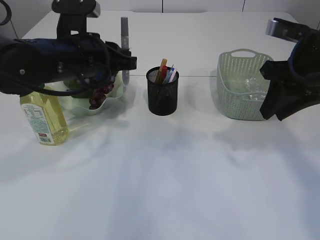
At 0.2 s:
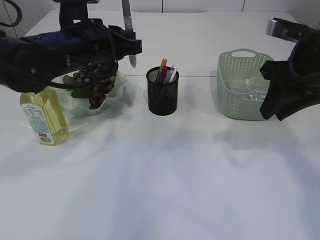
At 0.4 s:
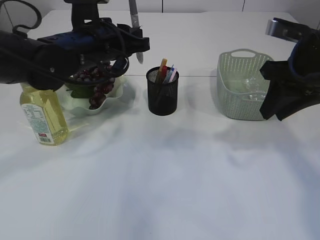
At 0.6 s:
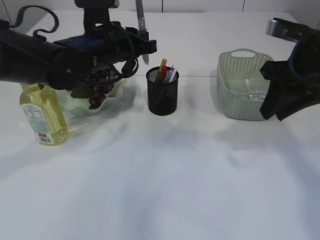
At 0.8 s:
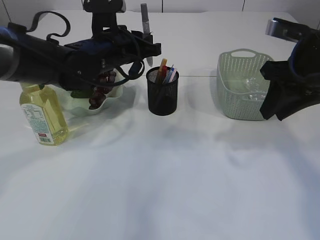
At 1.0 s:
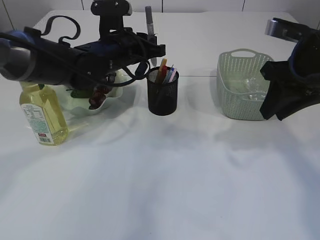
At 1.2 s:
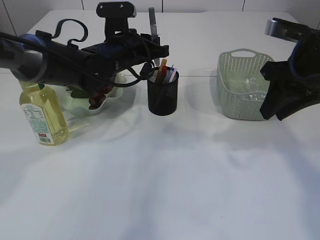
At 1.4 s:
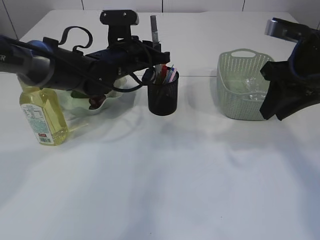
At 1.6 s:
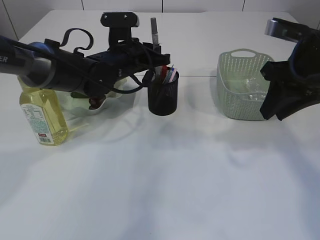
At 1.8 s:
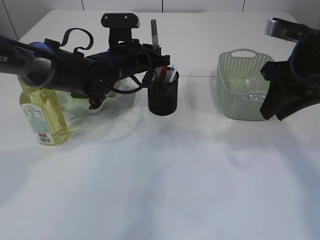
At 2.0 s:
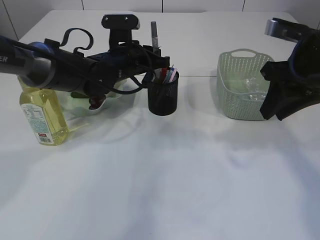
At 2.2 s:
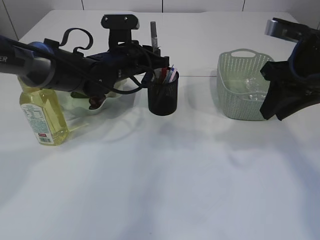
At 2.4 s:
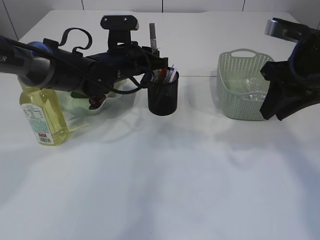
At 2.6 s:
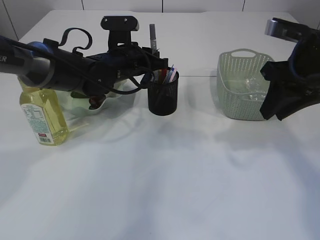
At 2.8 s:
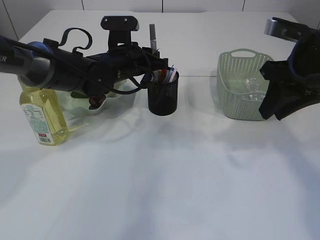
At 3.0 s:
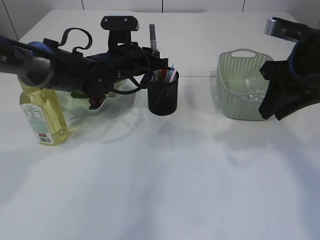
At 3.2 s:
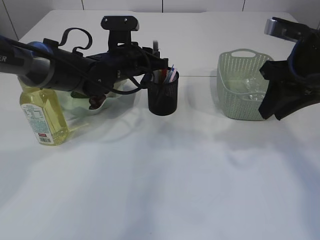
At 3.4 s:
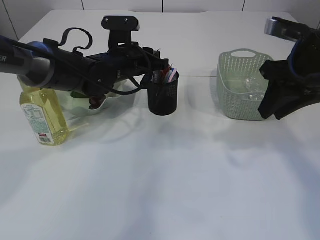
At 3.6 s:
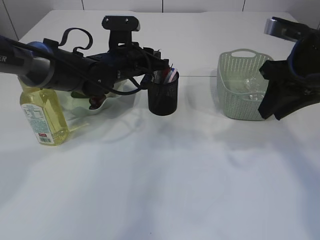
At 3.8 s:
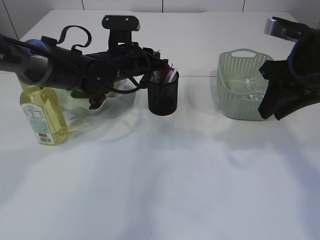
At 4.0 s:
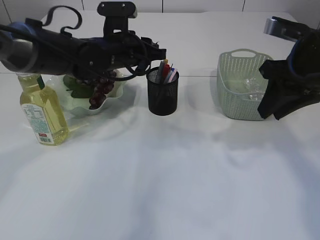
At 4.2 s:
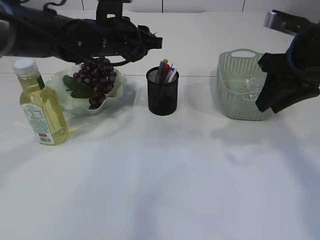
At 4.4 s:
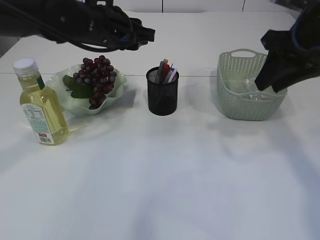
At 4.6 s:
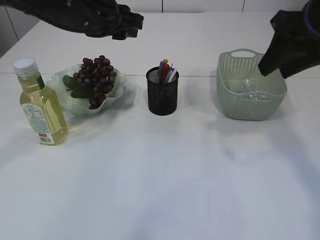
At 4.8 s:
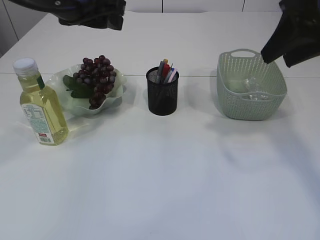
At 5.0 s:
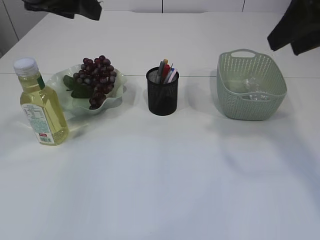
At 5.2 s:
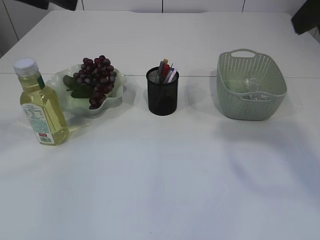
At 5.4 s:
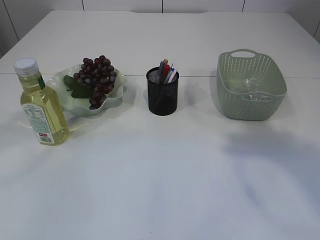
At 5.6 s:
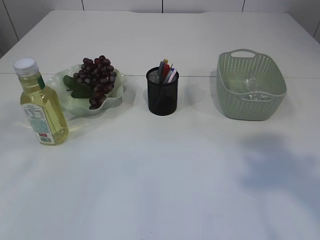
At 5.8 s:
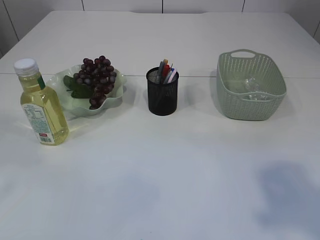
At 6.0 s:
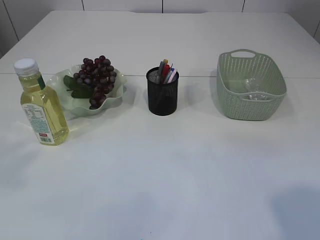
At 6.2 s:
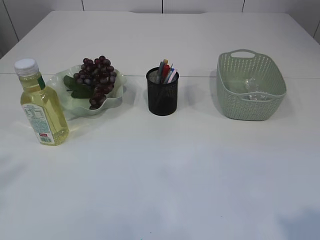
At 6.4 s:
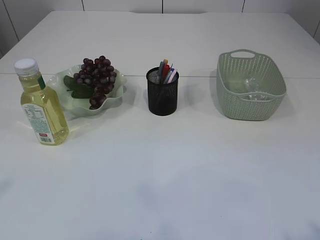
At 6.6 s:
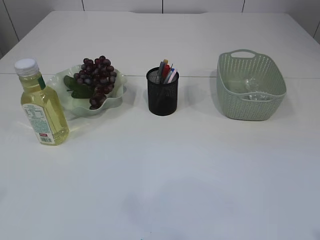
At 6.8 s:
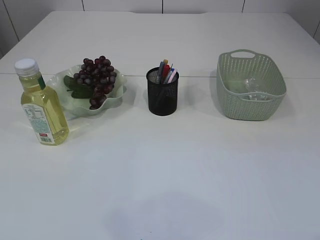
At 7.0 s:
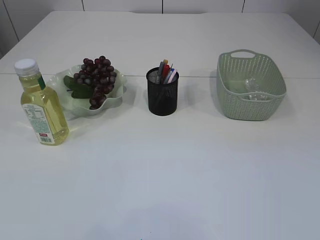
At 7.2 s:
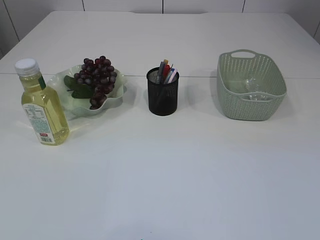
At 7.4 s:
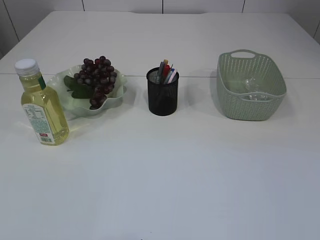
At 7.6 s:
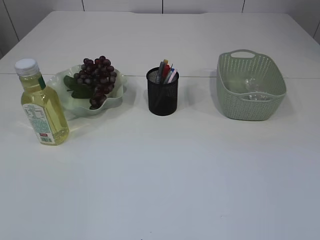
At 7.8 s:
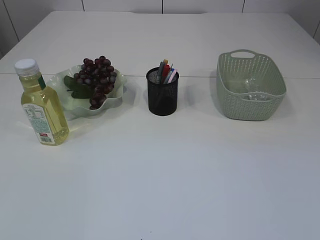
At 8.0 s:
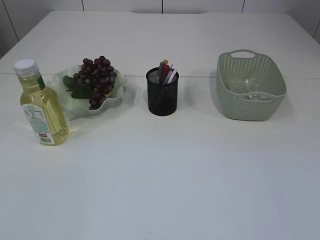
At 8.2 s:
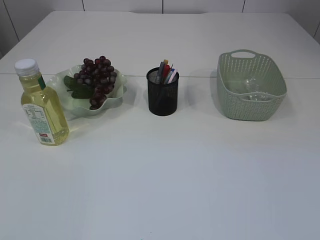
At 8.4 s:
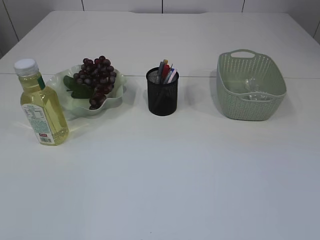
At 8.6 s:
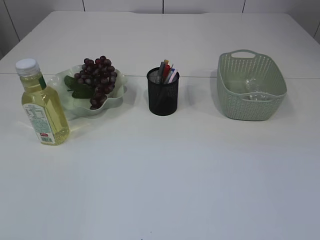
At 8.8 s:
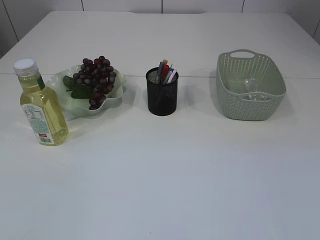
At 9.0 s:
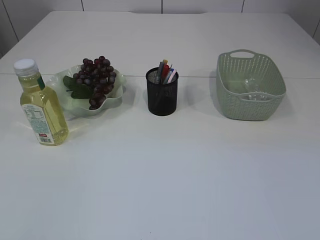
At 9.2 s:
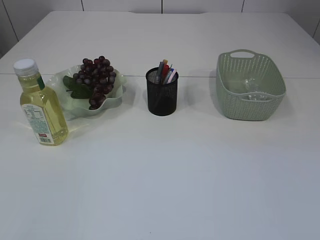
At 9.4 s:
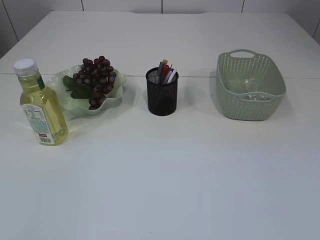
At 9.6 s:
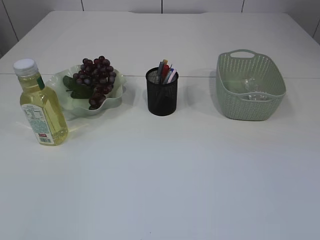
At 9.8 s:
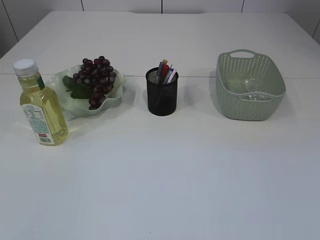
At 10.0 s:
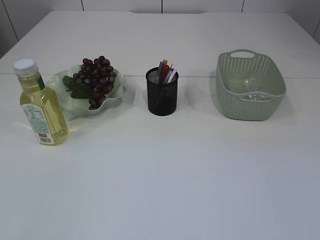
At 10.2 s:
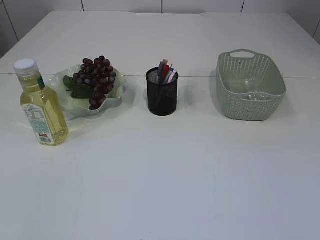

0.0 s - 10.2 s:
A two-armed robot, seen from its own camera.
Step, 0.0 s - 4.2 s: place the silver glue into the pen holder.
0.0 s - 1.4 s: The left gripper goes about 10 cm forward, to the right and downward.
1.4 s - 3.0 s: The two grippers keep their place.
3.0 s - 4.4 s: The left gripper heads upward, covering some 10 cm.
4.4 s - 5.8 s: The right gripper goes approximately 25 cm backward and upward. Meanwhile the left gripper shifts roughly 30 cm backward, upward and to the left.
5.8 s - 7.2 s: The right gripper goes about 15 cm downward and backward.

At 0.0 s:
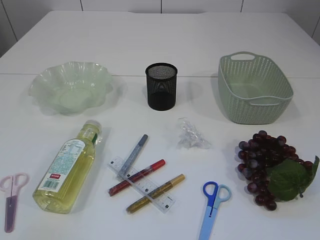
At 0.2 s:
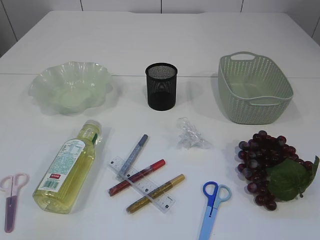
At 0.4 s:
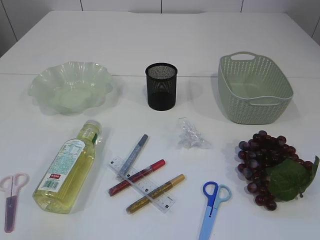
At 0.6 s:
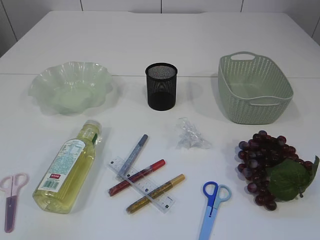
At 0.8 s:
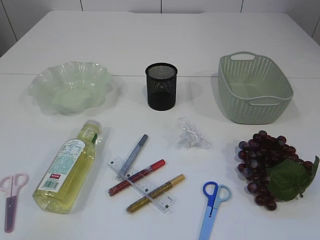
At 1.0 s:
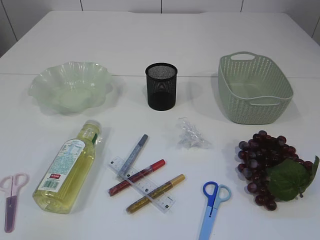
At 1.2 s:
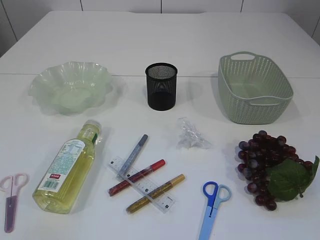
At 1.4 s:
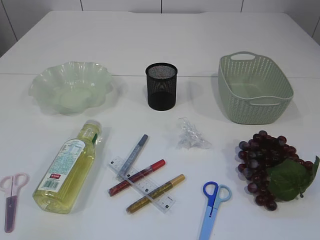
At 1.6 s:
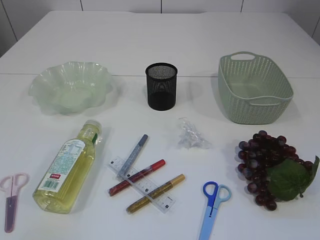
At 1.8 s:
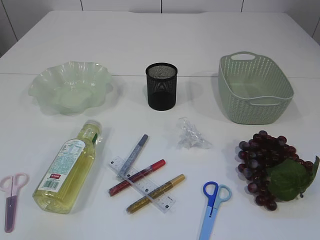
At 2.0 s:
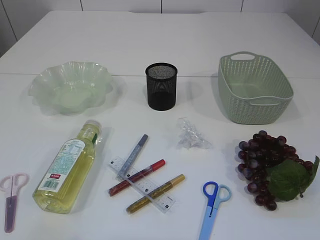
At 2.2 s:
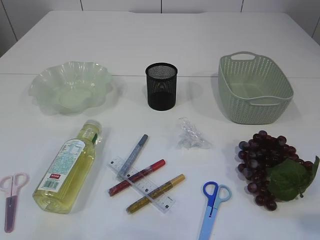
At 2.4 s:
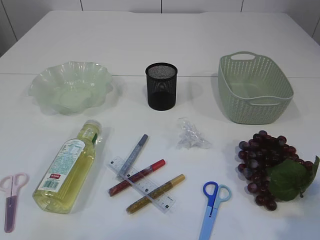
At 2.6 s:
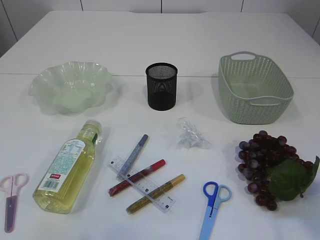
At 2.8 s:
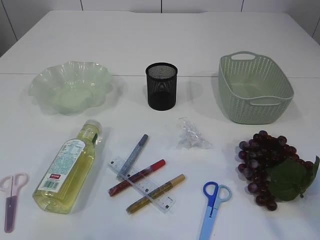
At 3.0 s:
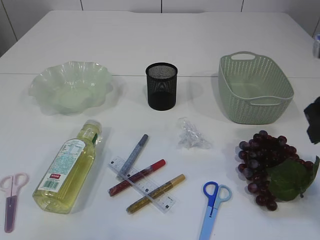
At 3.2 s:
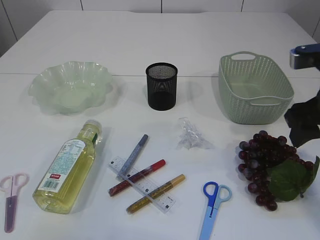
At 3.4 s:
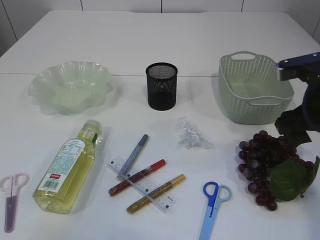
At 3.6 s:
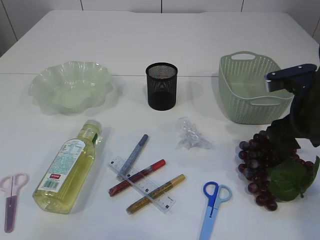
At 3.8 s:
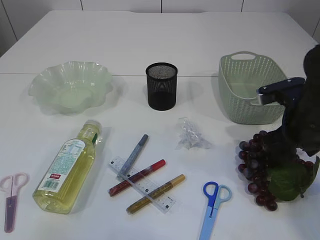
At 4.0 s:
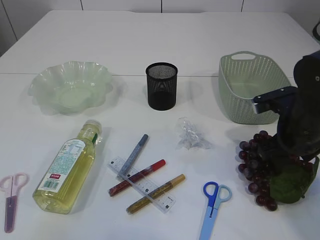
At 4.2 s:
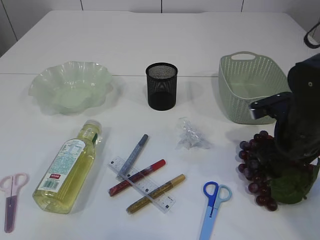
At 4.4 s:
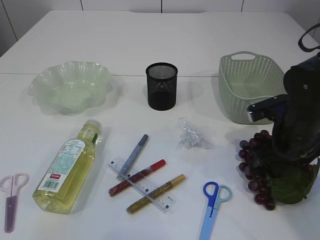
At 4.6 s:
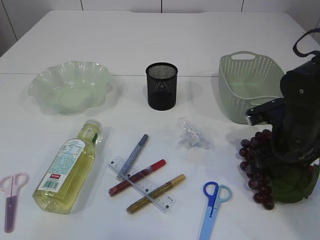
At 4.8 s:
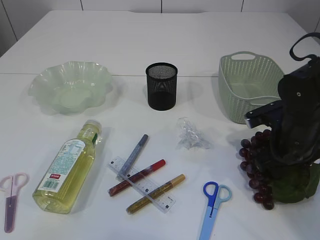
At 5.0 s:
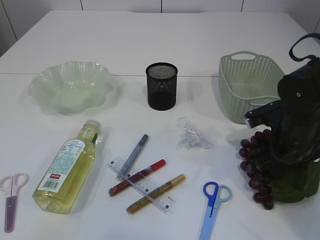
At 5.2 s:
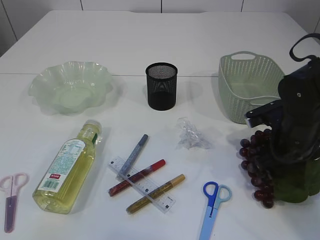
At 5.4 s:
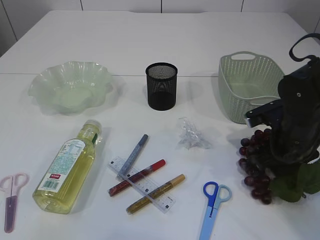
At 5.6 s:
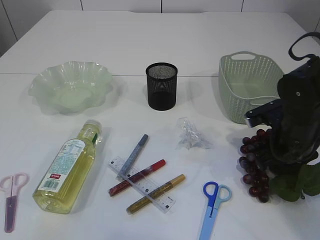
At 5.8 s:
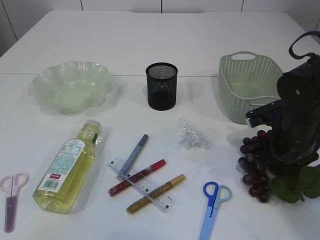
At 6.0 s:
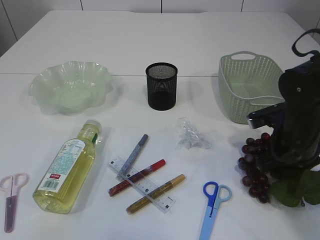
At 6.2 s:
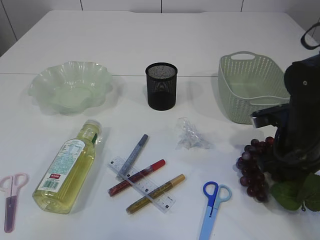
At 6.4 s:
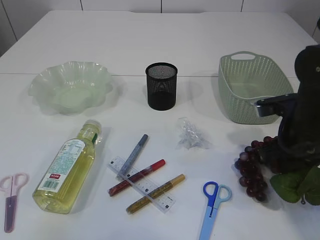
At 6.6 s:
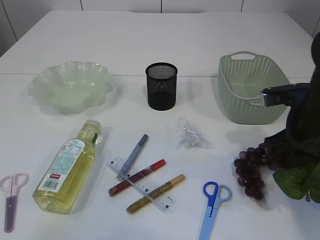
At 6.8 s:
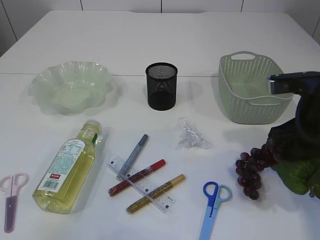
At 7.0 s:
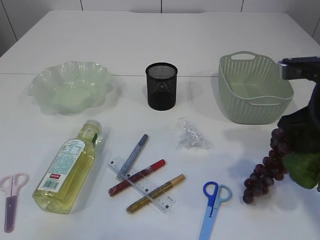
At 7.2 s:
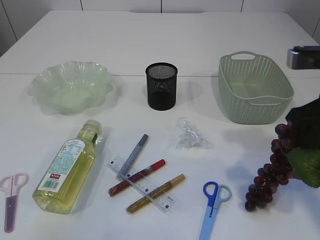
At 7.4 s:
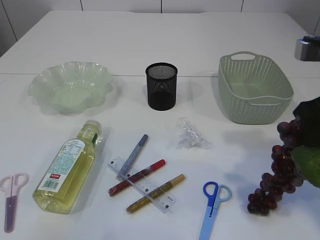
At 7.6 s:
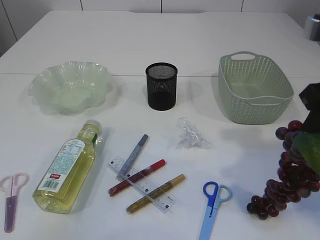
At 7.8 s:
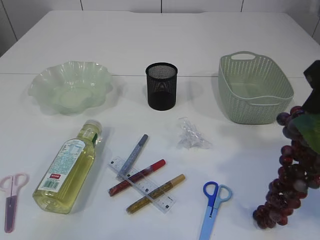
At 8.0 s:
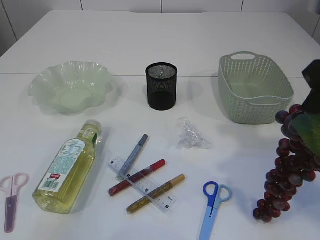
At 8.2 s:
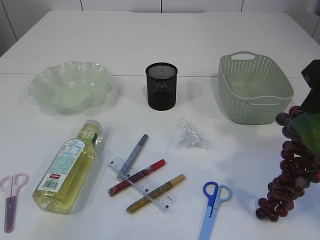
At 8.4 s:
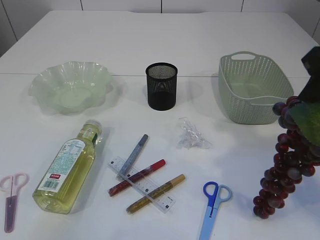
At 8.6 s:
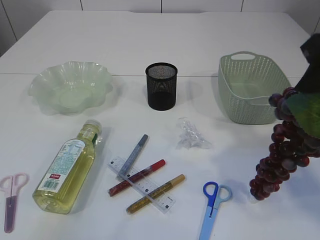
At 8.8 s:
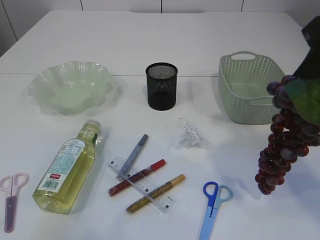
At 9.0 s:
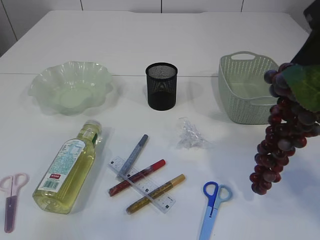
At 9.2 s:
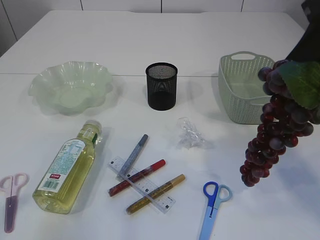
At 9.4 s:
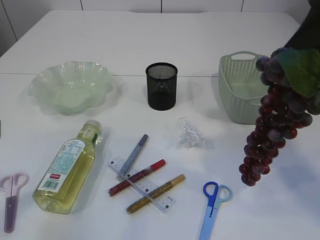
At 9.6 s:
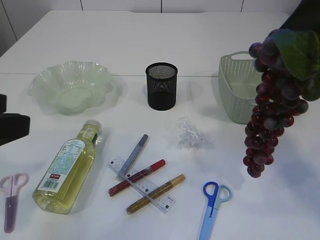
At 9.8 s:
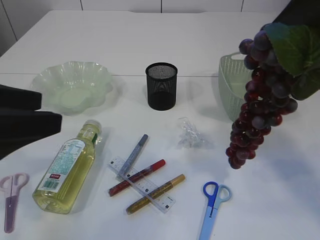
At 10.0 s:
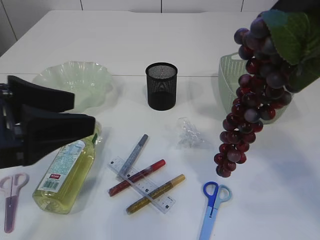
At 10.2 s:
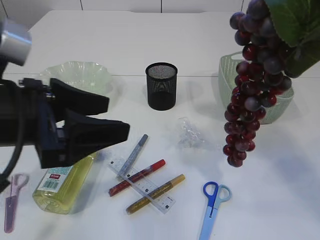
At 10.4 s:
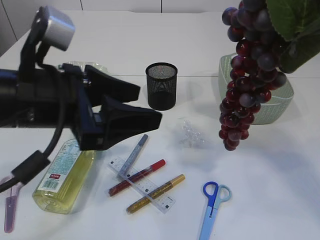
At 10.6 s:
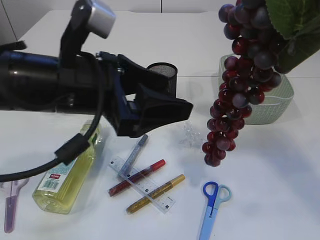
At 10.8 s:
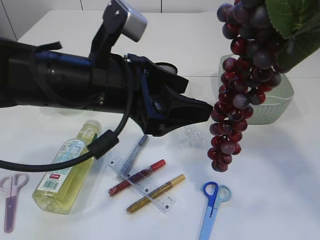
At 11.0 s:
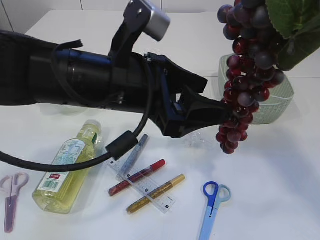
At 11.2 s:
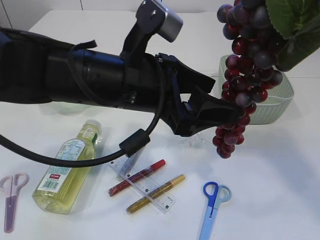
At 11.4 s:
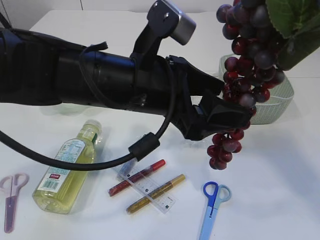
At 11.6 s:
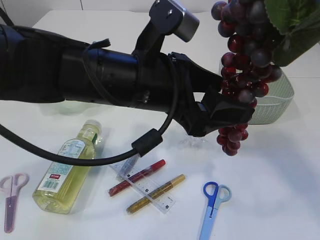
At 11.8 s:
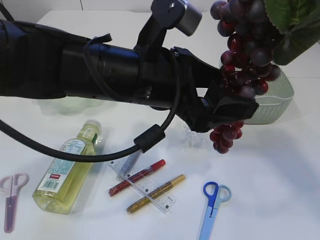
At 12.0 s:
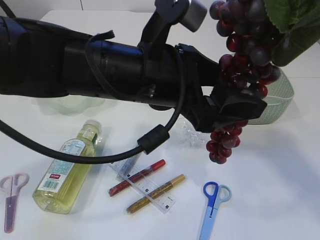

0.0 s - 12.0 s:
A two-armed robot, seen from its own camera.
Step, 0.0 s - 9.8 s: Pick up the grapes.
1.6 s - 3.0 s: The right gripper shifts some 25 cm forward.
3.0 s - 4.4 s: The right gripper shifts approximately 15 cm downward and forward.
4.4 s - 6.0 s: The right gripper closes up.
6.0 s - 7.6 s: The right gripper goes roughly 20 cm upward and backward.
7.6 s - 9.0 s: The right gripper shifts some 5 cm upward.
9.0 s - 10.4 s: The left gripper travels forward and to the right by roughly 20 cm; the right gripper goes approximately 5 cm upward.
10.4 s - 12.0 s: The left gripper shifts about 10 cm to the right.
